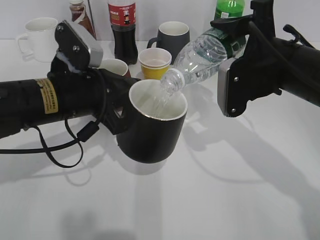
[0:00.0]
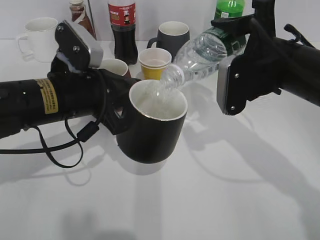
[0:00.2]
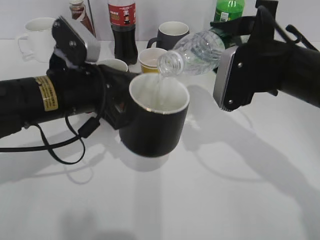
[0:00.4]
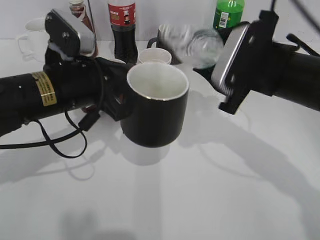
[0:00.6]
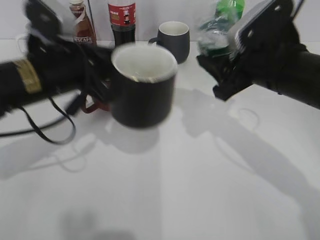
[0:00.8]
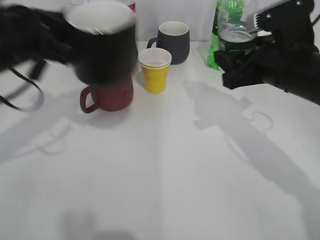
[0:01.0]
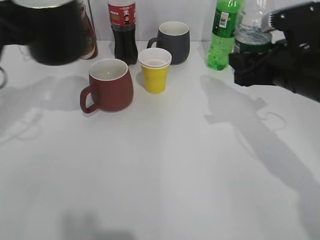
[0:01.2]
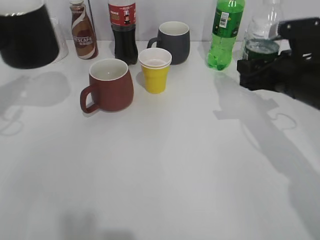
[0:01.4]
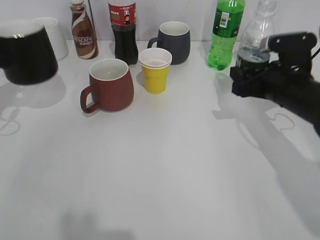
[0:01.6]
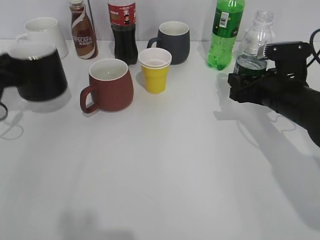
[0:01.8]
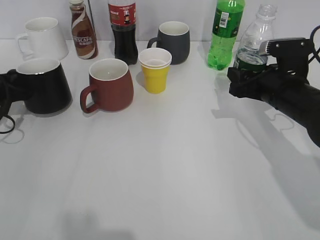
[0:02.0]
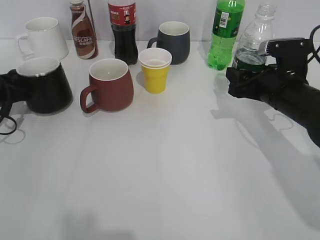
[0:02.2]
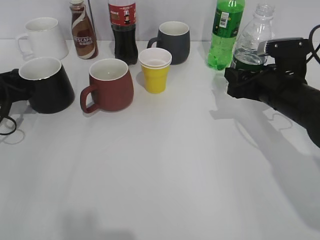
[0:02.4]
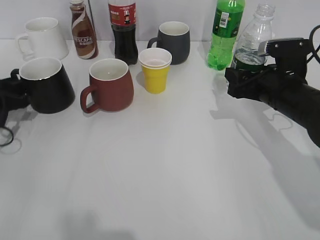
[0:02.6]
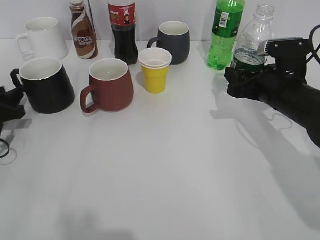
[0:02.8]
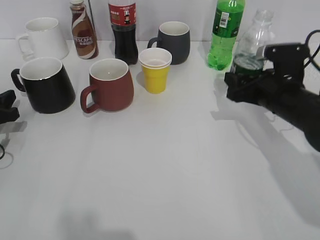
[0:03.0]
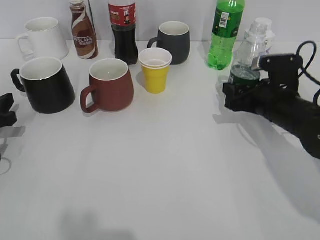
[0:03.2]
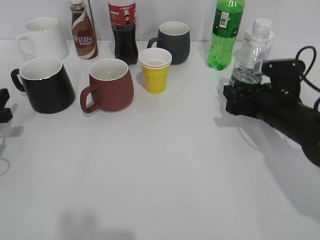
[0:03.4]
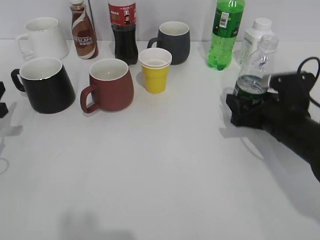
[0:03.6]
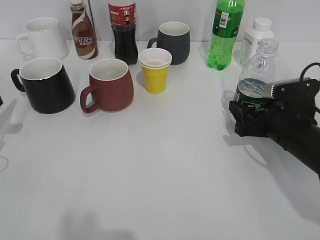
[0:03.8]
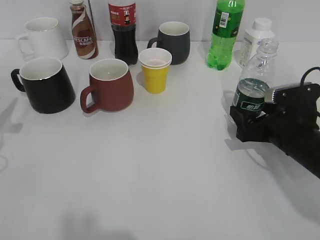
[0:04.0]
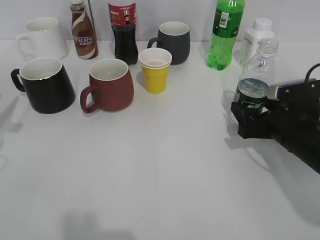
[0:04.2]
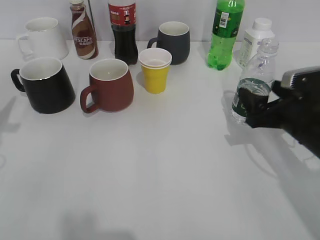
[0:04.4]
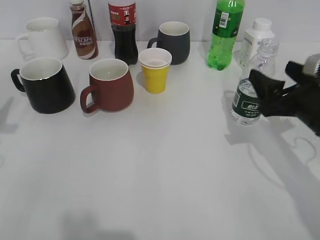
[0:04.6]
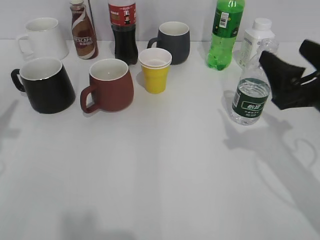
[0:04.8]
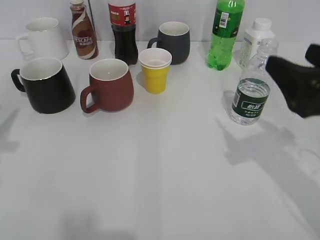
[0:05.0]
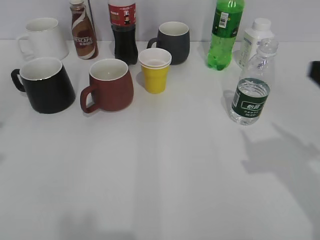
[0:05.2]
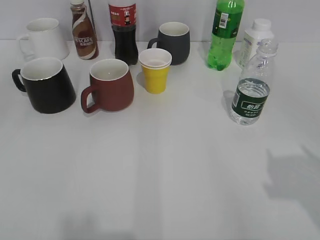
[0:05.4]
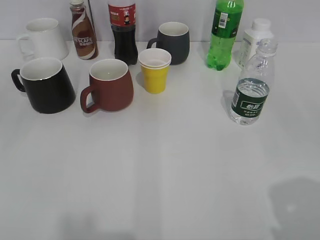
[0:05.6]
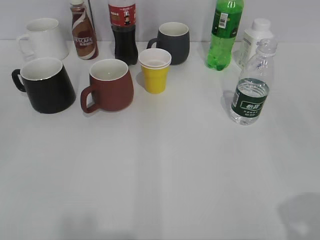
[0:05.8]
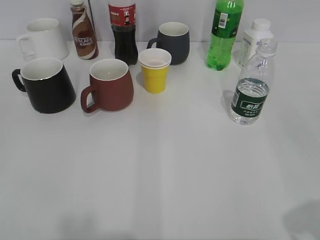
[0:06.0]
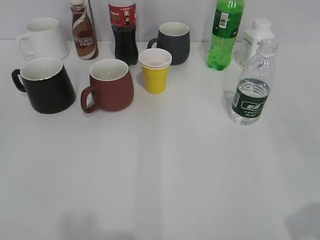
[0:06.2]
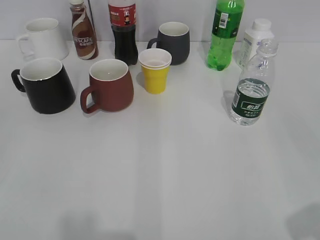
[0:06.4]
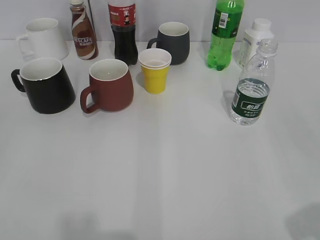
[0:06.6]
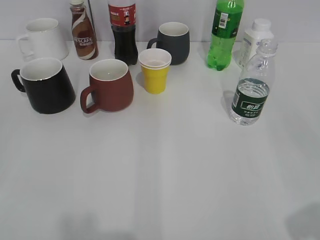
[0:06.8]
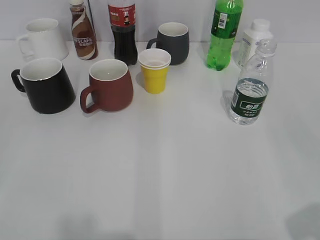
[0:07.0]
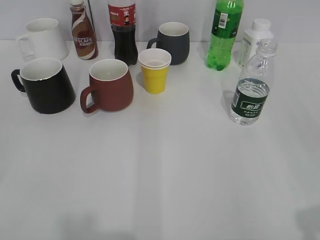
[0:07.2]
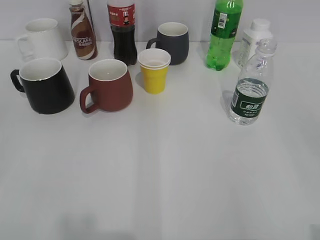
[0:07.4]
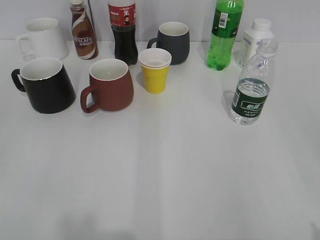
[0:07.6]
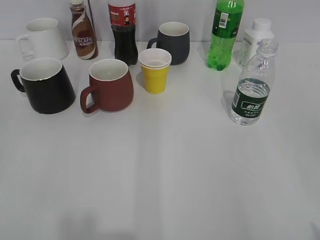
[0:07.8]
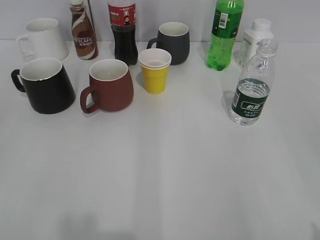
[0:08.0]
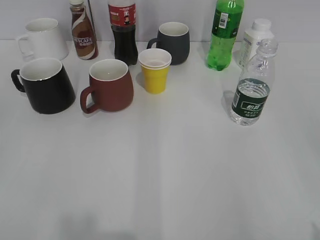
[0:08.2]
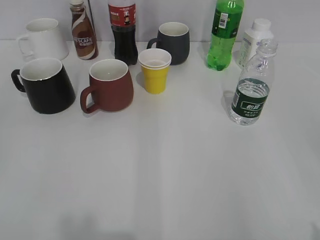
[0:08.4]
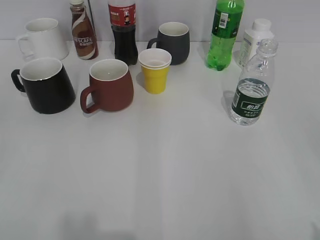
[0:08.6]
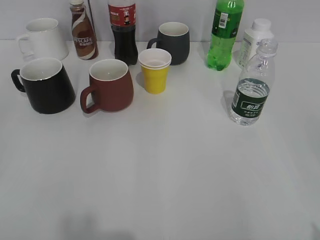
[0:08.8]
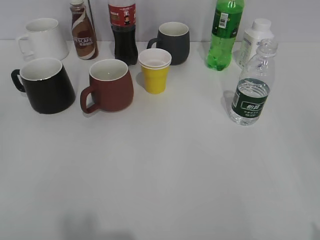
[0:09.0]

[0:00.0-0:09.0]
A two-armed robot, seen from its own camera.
Step, 0:00.6 to 0:02.2: Place the black cup on the table with left gripper.
Step, 0:02.4 to 0:04.0: Place the water bottle on the table with right gripper.
0:00.0 to 0:01.6: The left gripper moves to the left, about 20 cm, while the right gripper goes approximately 10 cm downward and to the right.
0:01.6 to 0:03.0: The left gripper is displaced downward by about 10 cm, and opens up.
0:03.0 to 0:04.4: The left gripper goes approximately 10 cm upward, while the right gripper heads backward, covering approximately 5 cm, and opens.
0:04.4 to 0:06.0: The right gripper moves backward and upward, about 25 cm, and closes, while the left gripper heads backward, covering about 25 cm.
0:07.6 to 0:09.0: Neither gripper changes place.

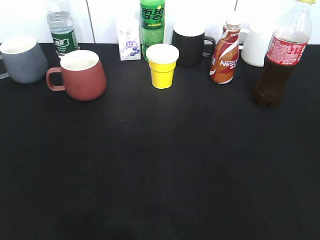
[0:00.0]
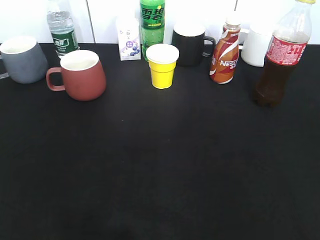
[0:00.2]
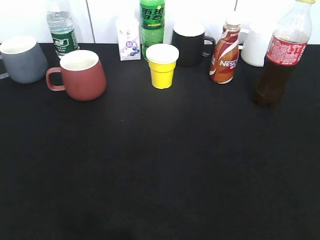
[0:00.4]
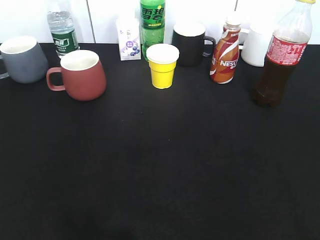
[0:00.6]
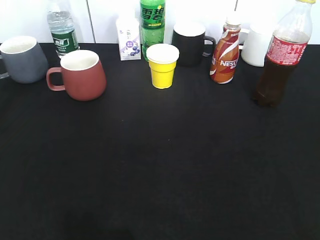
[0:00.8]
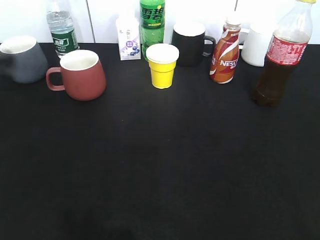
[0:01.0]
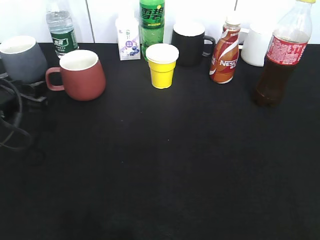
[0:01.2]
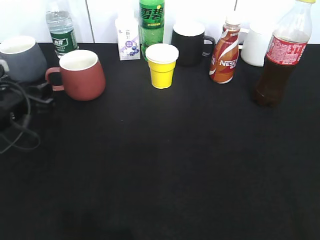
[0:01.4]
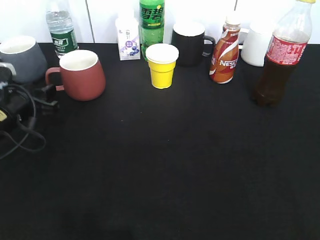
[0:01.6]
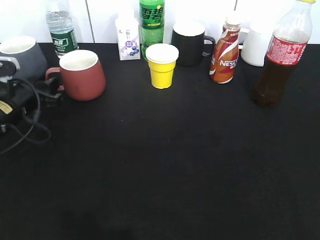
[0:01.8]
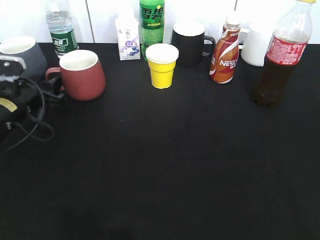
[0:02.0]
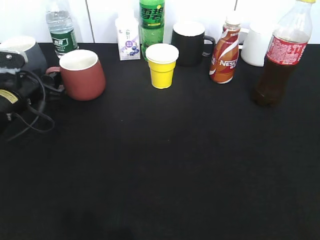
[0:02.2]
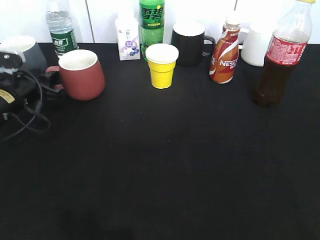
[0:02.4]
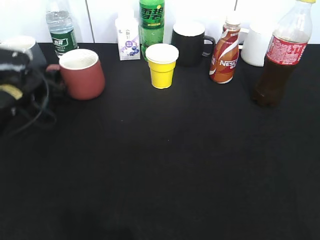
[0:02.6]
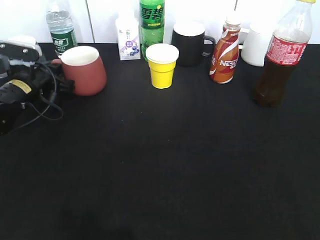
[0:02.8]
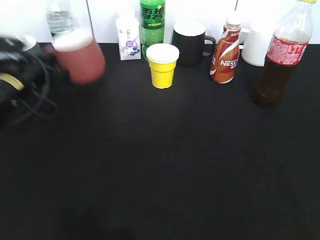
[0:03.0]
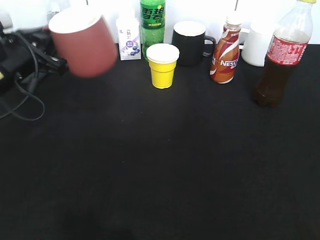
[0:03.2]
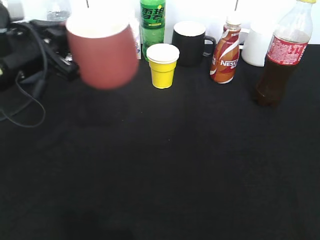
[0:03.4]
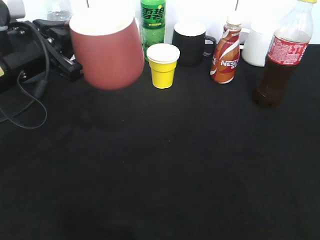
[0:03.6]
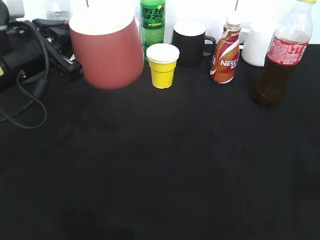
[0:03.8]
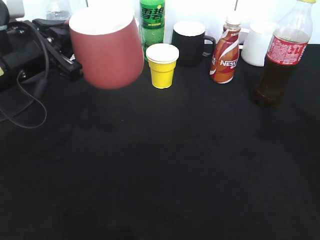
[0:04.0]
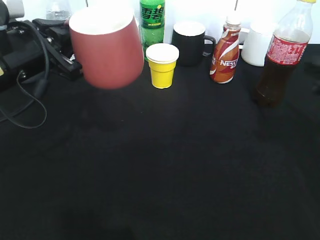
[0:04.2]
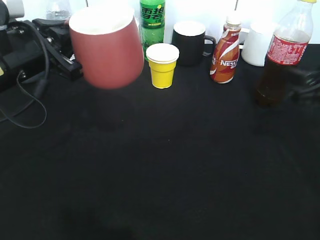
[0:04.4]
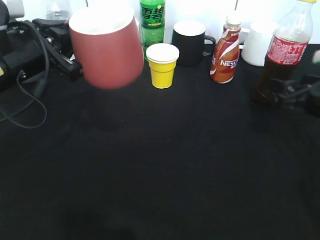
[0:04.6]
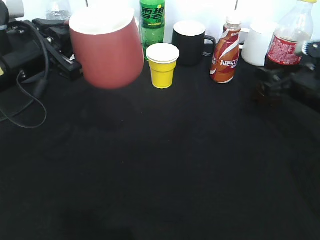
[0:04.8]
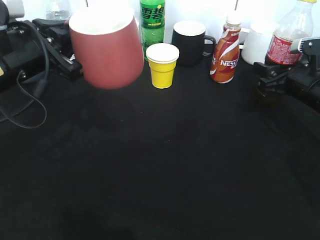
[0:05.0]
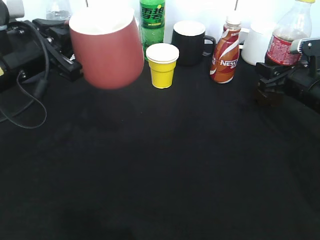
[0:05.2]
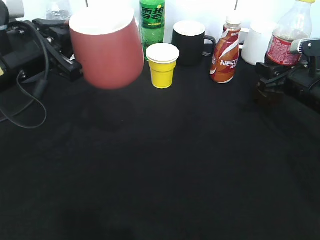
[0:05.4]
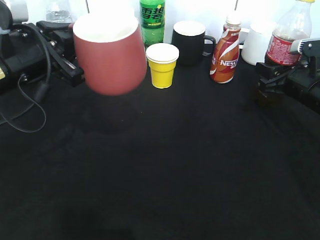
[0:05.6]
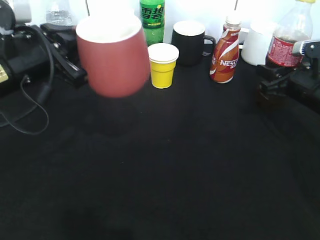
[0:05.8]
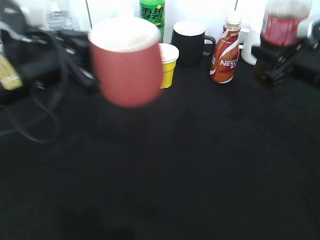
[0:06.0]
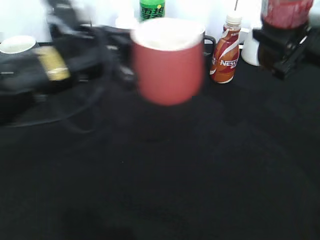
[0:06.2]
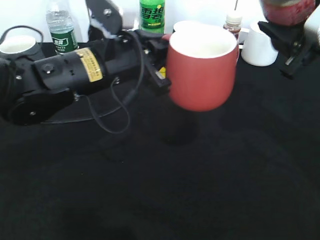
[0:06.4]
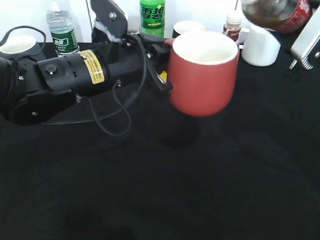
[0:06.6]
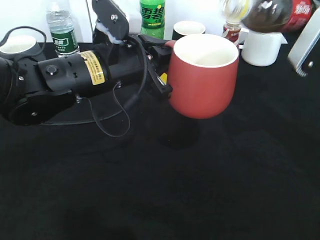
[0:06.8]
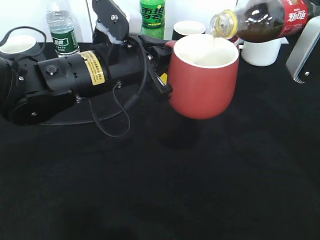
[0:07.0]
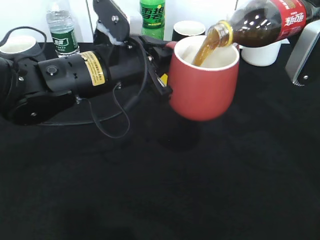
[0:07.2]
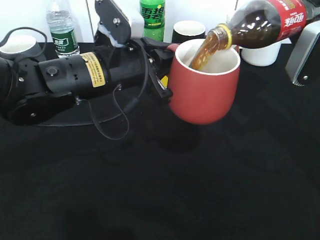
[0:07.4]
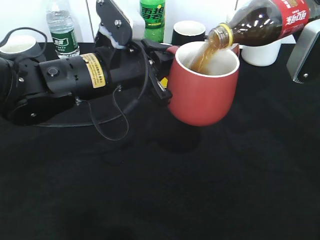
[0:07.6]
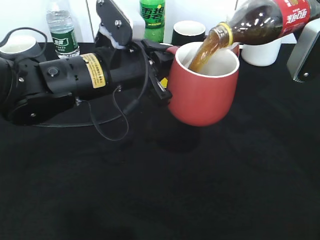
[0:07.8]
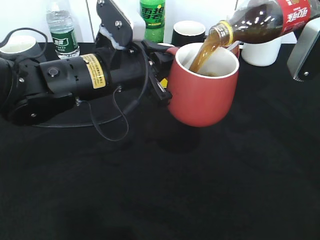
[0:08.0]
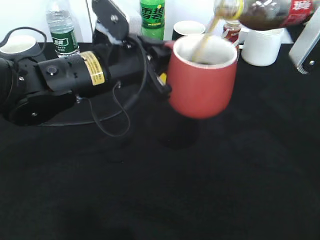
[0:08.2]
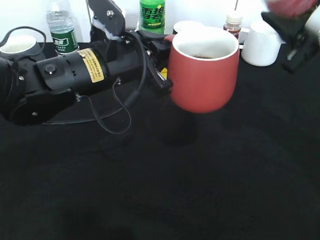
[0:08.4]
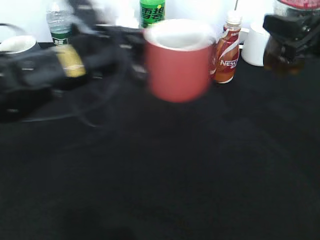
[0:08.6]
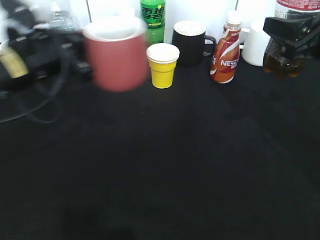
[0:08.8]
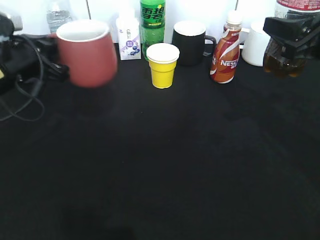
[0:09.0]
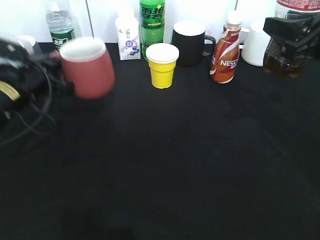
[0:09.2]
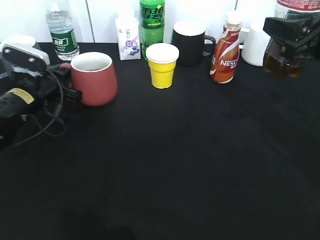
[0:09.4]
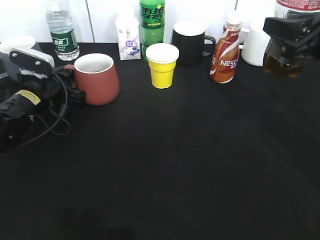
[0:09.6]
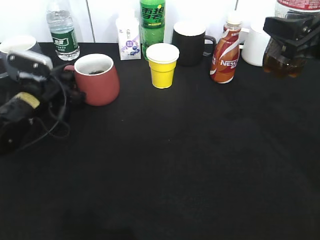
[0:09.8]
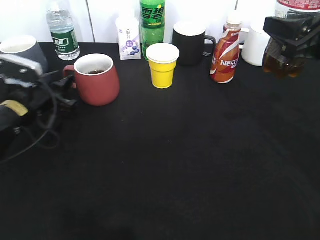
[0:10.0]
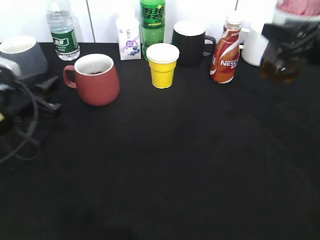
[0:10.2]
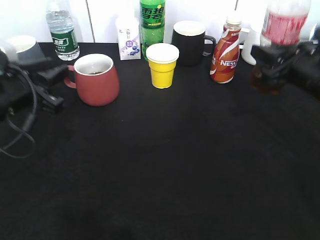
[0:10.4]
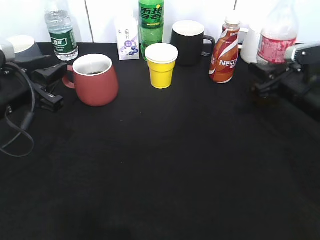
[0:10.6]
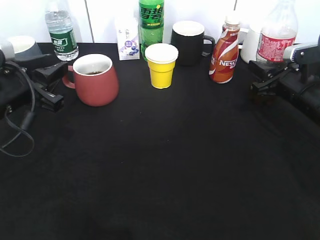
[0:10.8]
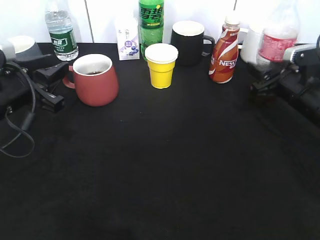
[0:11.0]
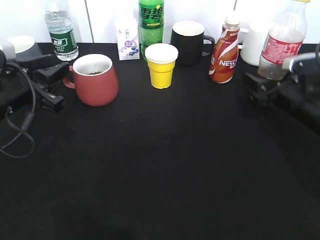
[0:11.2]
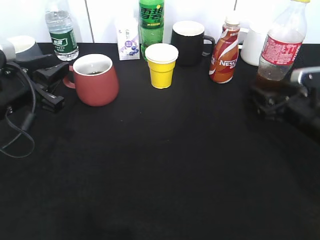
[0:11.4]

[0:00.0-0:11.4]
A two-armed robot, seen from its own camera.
Step, 0:00.0 to 0:02.8: Grasp the red cup with left gripper.
Step, 0:03.0 to 0:03.8: Lift the red cup with left gripper.
Step, 0:04.0 to 0:05.4: Grasp the bottle with cola with right gripper.
Step, 0:05.6 to 0:08.2: Pour the cola from bottle to cup with right gripper.
Step, 0:08.4 to 0:10.0: Place the red cup on the table with left gripper.
0:00.0 to 0:01.4: The left gripper moves forward and downward, roughly 35 cm, and opens its fingers.
0:01.4 to 0:02.8: The left gripper travels forward by approximately 10 cm, and closes its fingers.
0:02.8 to 0:04.2: The left gripper heads upward, backward and to the right, covering about 20 cm. Meanwhile the right gripper goes about 25 cm forward.
0:04.2 to 0:05.6: The right gripper travels forward and downward by about 15 cm, and closes.
0:05.6 to 0:07.2: The right gripper travels upward and backward by about 15 cm. The left gripper heads to the right, covering approximately 10 cm.
0:08.6 to 0:10.0: The left gripper goes some 20 cm to the left and downward, and opens up.
0:10.0 to 0:11.4: The left gripper heads upward and backward, covering some 10 cm, while the right gripper moves downward, roughly 15 cm, and opens its fingers.

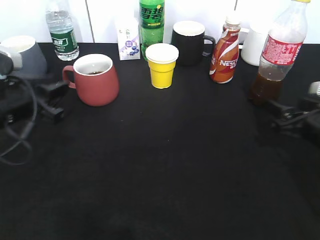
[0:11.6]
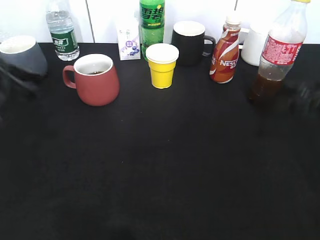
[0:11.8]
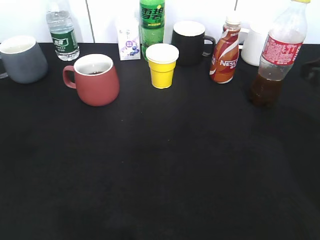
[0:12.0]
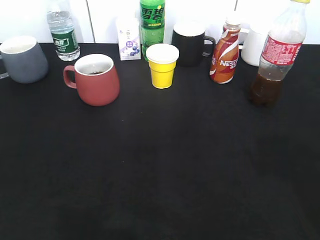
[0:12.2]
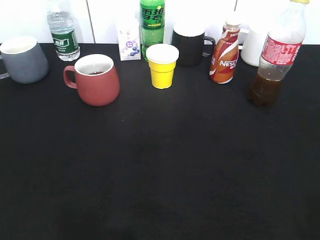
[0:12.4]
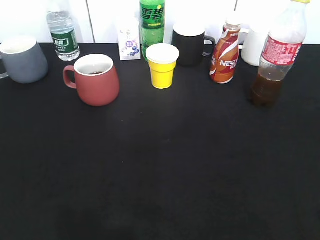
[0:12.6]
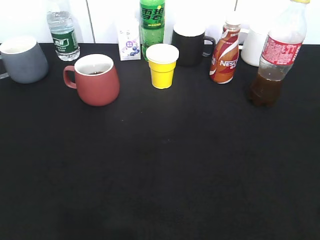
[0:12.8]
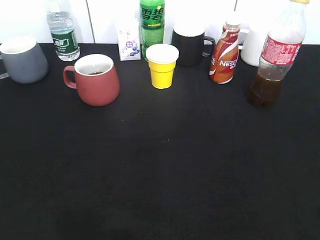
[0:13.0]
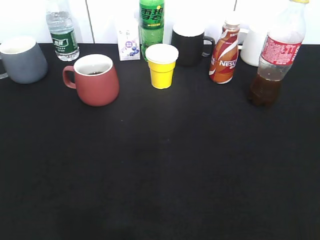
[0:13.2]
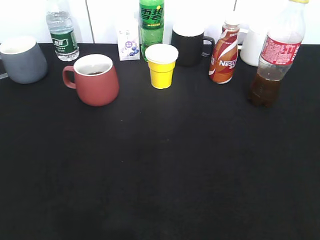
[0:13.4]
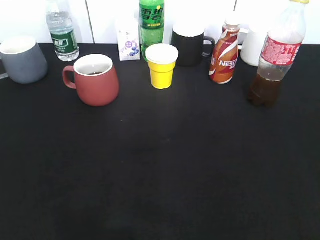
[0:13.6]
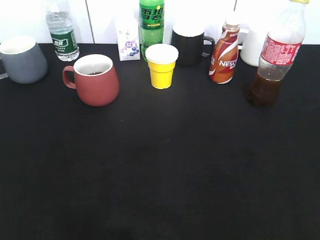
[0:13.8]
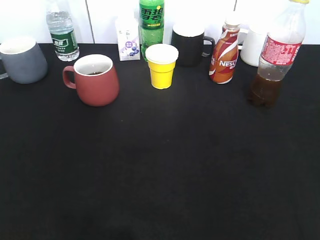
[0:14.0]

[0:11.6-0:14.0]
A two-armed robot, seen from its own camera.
0:11.6 to 0:12.8: The grippers both shift backward and upward by about 25 cm.
